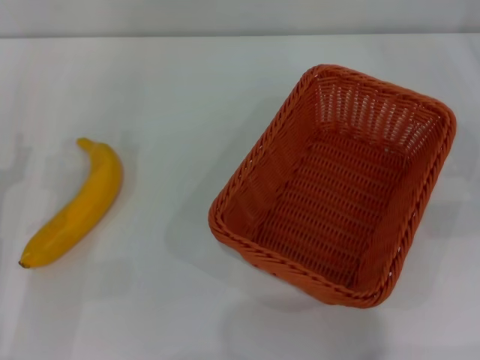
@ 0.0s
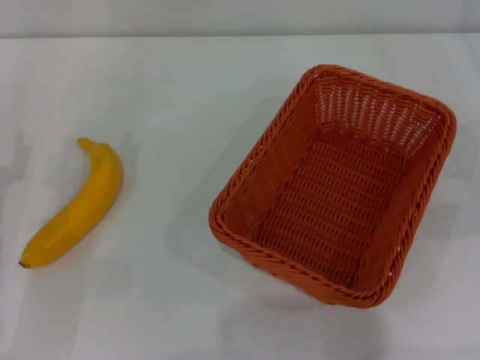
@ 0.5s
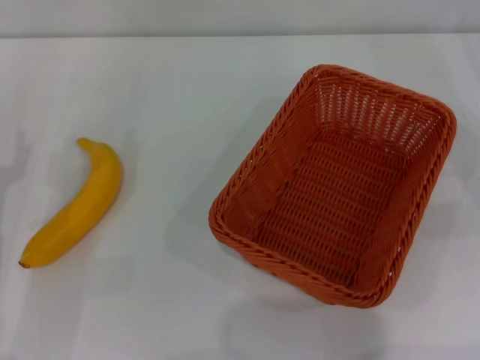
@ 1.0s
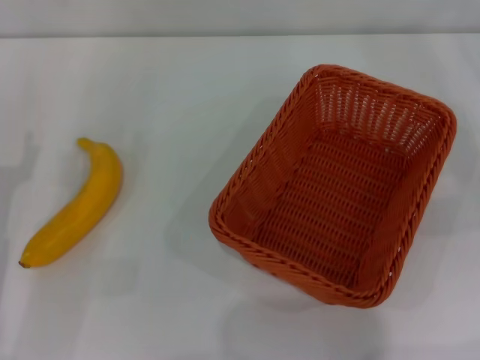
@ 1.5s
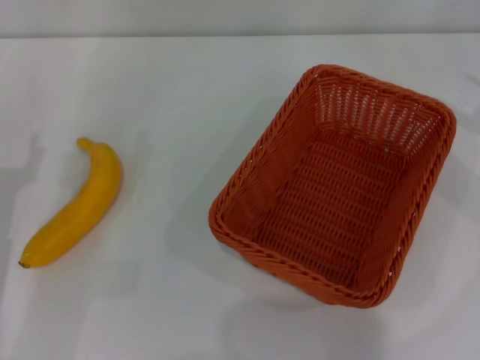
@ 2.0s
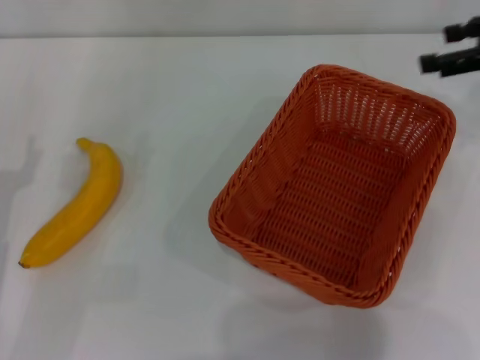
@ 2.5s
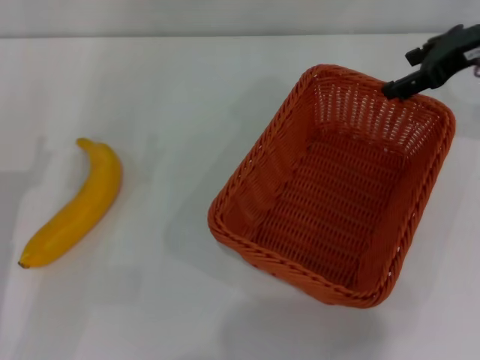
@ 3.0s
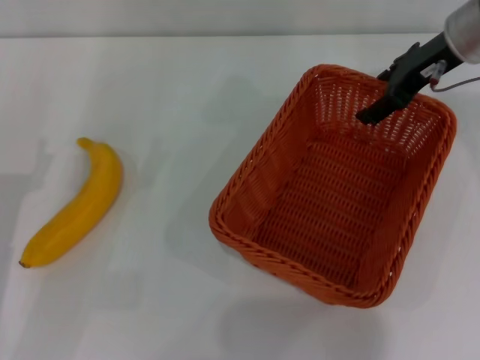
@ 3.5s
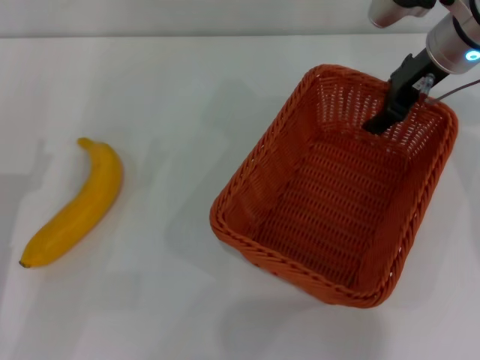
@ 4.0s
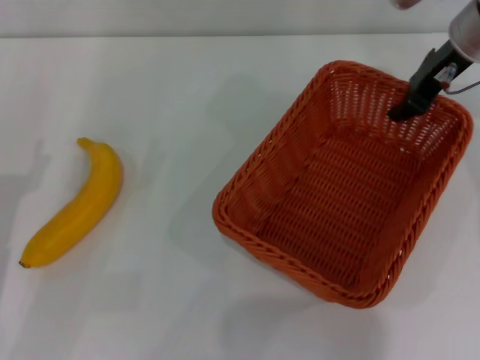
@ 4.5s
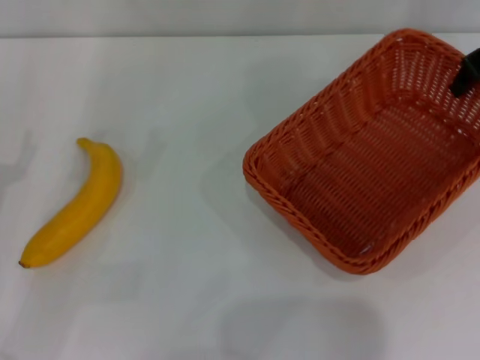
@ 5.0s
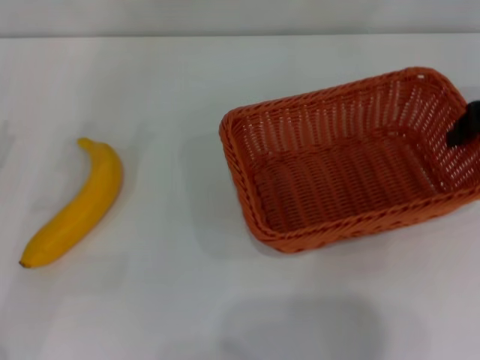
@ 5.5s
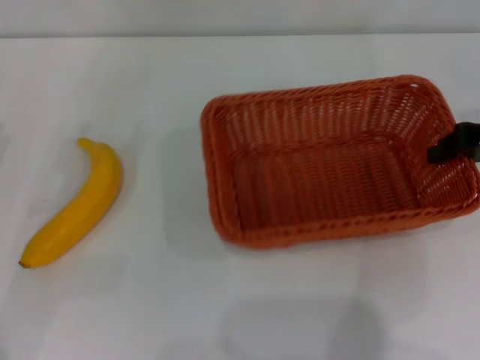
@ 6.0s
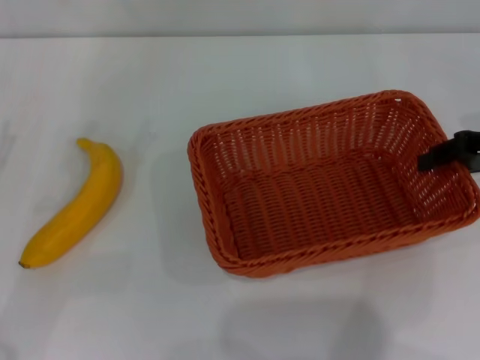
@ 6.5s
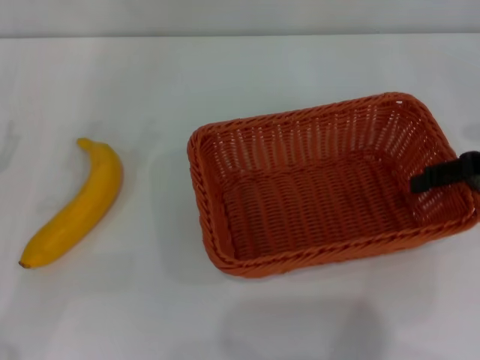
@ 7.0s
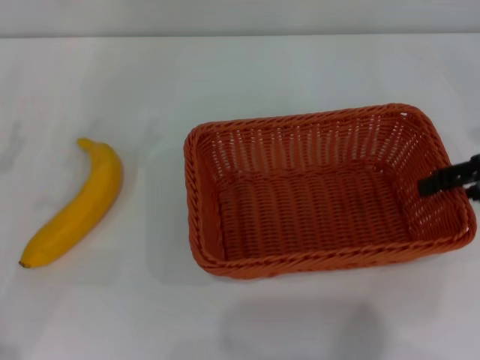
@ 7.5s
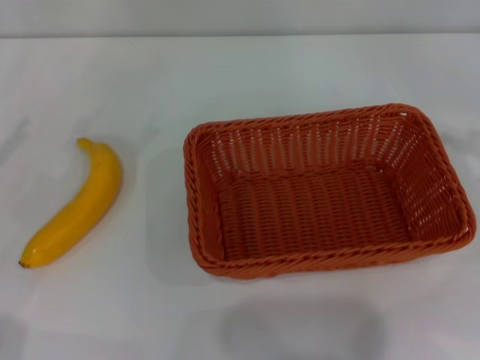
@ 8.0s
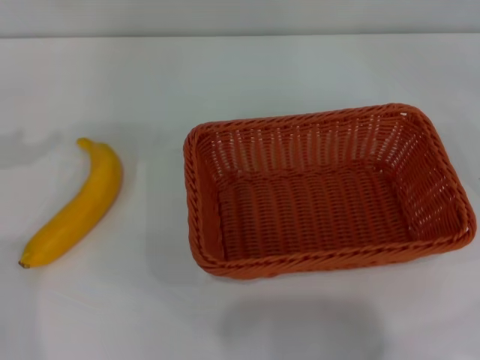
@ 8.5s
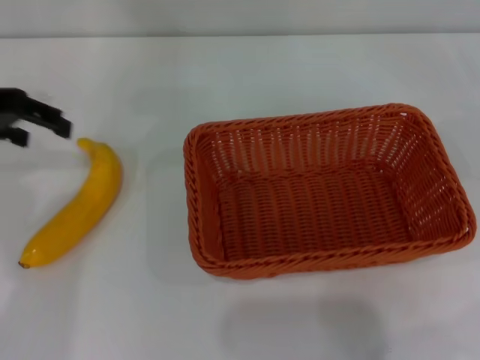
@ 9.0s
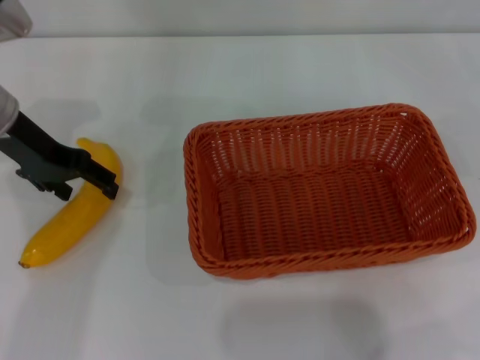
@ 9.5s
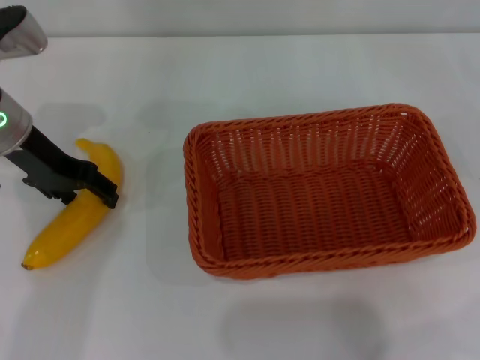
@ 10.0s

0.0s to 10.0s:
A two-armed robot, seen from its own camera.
Step, 0.0s to 4.5s: Pick up the light basket with the right gripper.
Step, 5.0s to 7.5s: Place the light basket in the center of view with the right gripper.
2.0s to 4.0s: The right gripper moves to the left and forward, some 25 cm.
4.0s to 6.0s: The left gripper moves to the left, about 5 cm, while the right gripper moves to the right and backward, about 15 cm, and closes up.
6.0s to 8.0s: The left gripper heads upward and to the left, covering about 10 cm; the right gripper travels to the right by approximately 10 cm, and opens.
8.0s to 10.0s: The left gripper moves to the right and forward, approximately 20 cm.

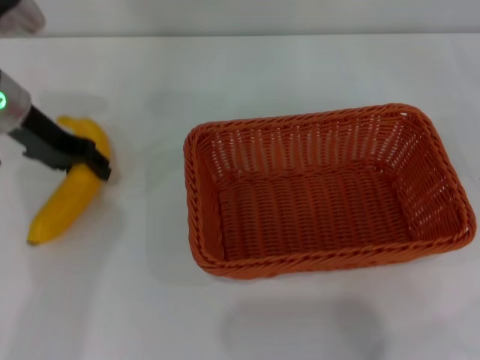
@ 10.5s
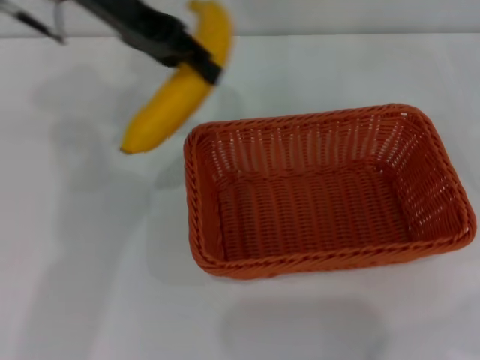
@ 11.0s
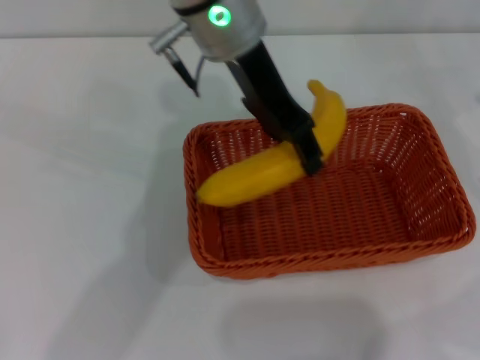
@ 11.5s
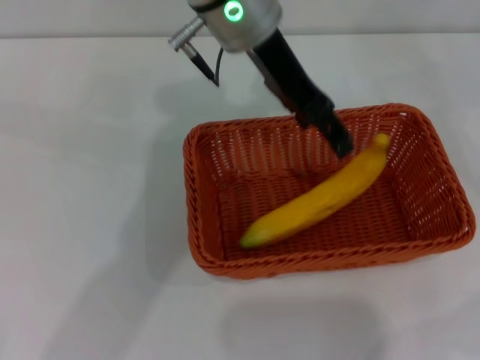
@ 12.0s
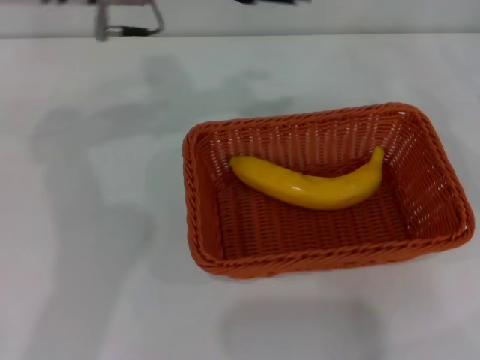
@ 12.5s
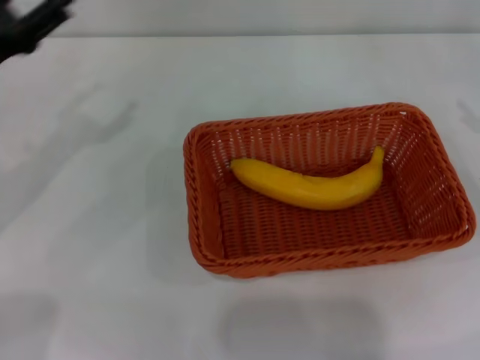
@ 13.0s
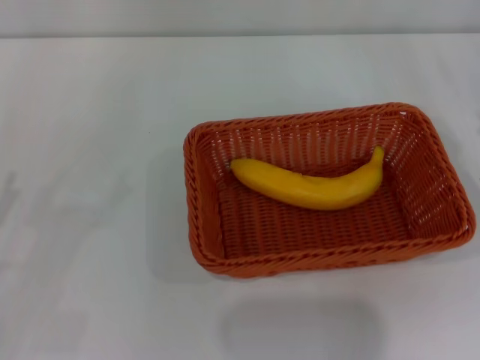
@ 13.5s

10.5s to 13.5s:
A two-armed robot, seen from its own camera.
Step, 11.0s to 11.5s: Place the banana into the light basket with the left gripper.
10.5s to 12.0s: The left gripper is displaced to the right and upward by some 25 cm, and opens.
12.0s to 13.5s: The right gripper heads downward, to the left and backward, covering approximately 15 cm; the left gripper is displaced to the left, backward and downward by roughly 40 cm.
